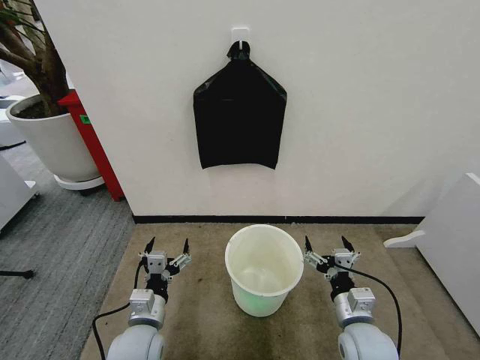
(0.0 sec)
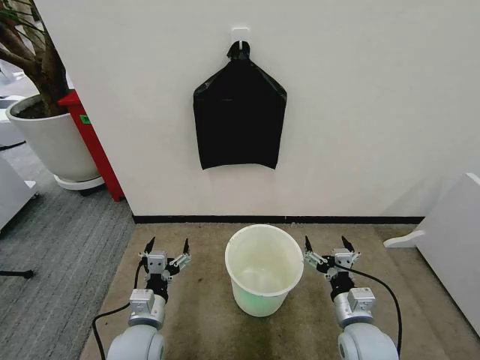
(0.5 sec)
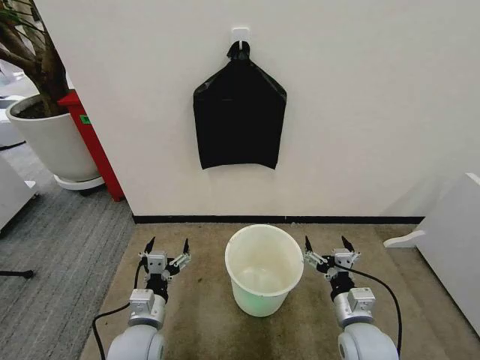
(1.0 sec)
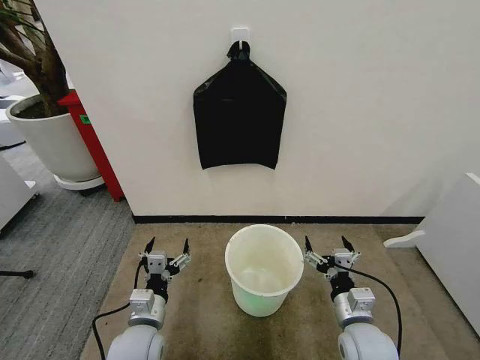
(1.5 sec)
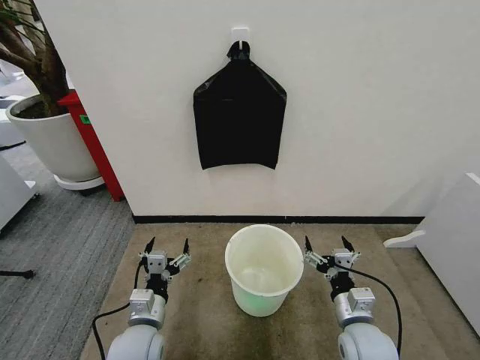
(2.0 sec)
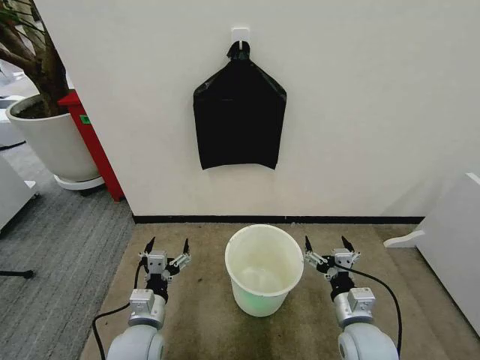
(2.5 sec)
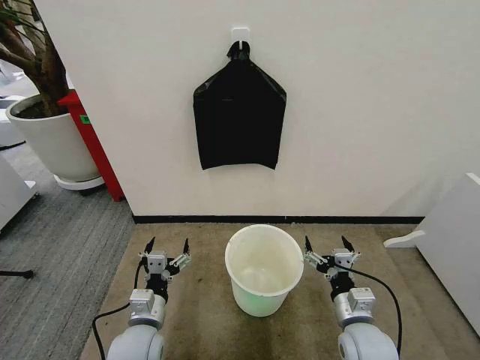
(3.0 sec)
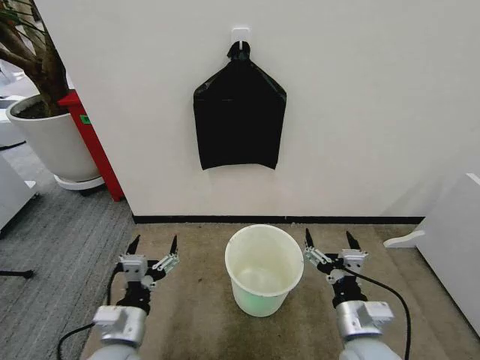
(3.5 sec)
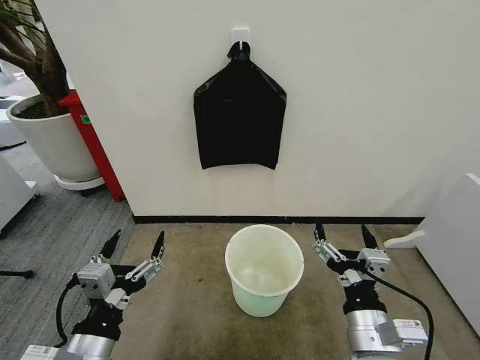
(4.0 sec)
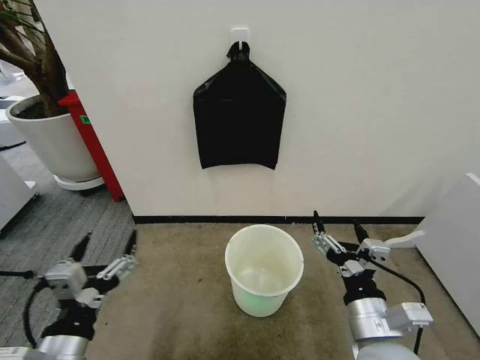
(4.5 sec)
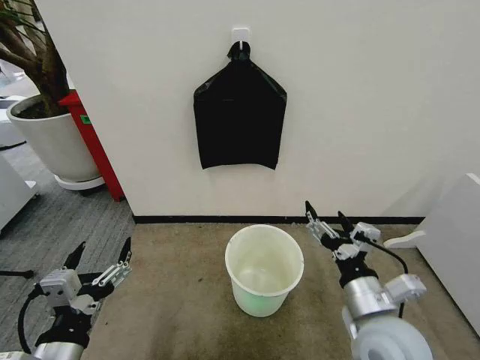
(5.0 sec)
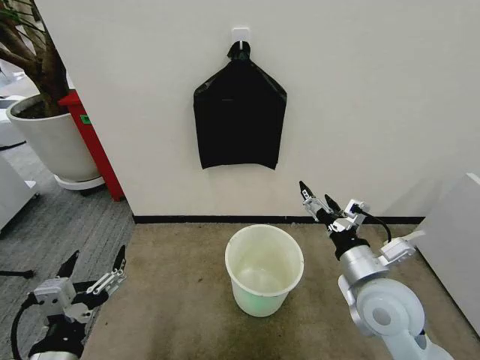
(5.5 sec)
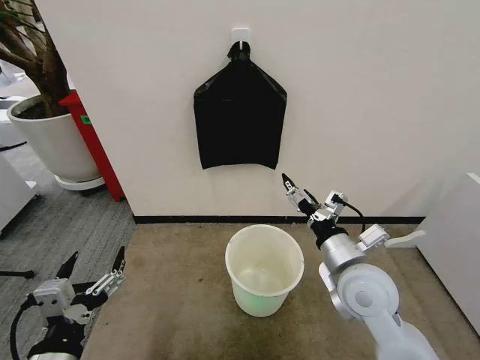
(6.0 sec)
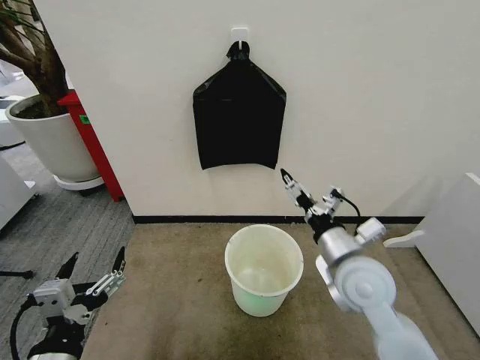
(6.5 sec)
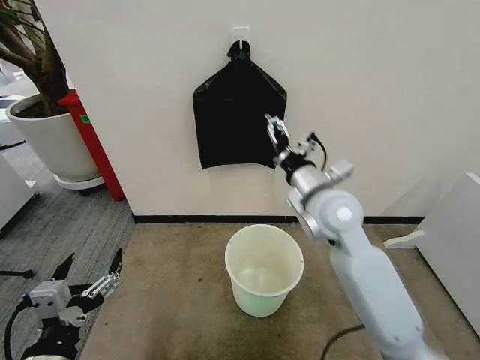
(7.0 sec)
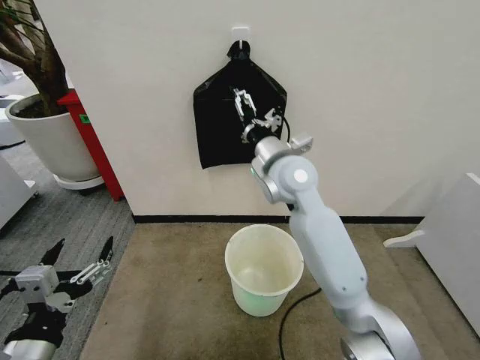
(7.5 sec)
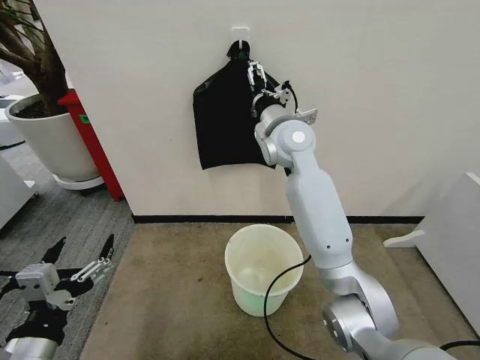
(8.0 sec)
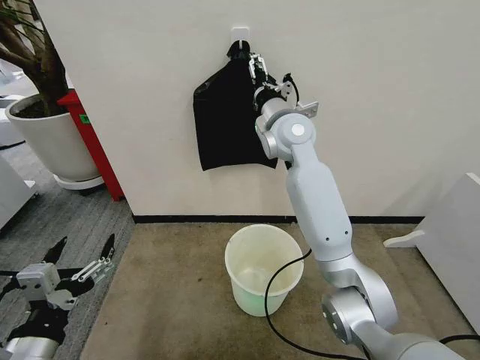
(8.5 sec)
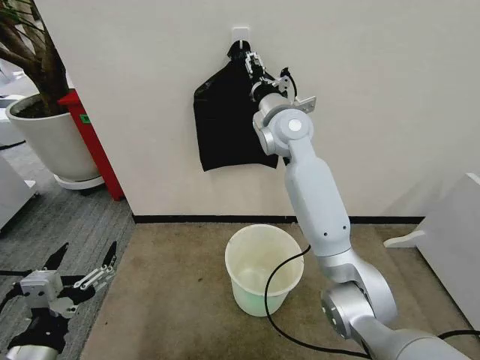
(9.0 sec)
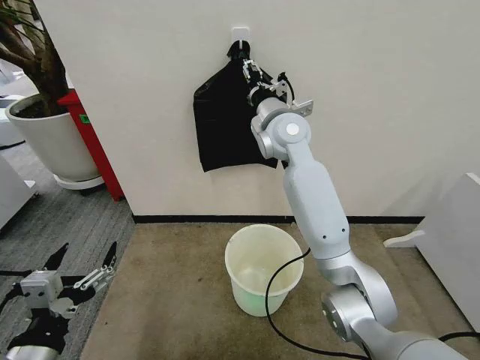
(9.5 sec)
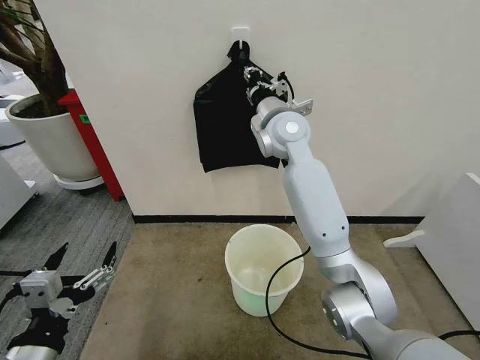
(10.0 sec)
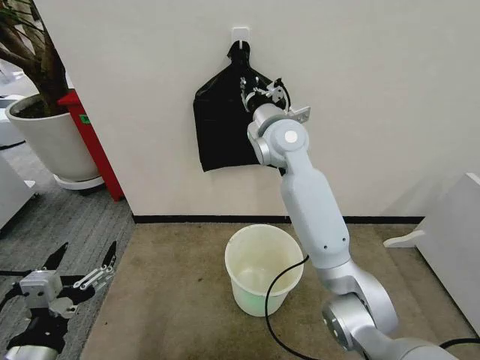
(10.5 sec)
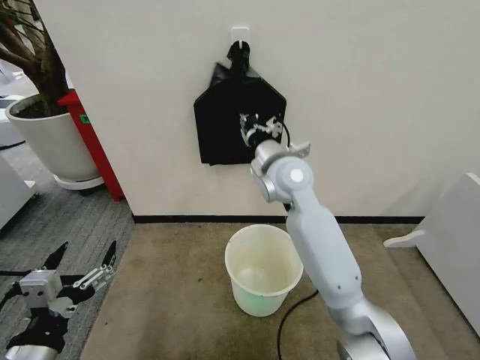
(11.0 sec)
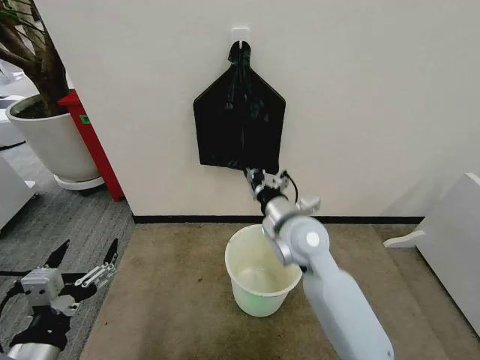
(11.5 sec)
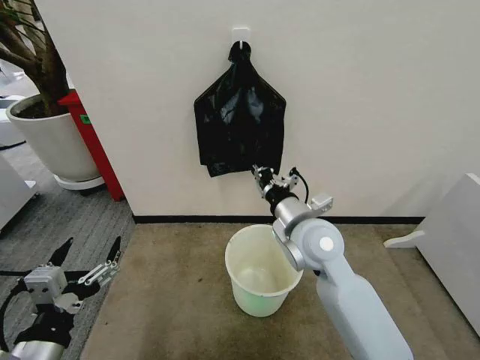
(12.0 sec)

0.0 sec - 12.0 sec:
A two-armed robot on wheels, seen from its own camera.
Task of the whole recording: Place the garbage bag over the trash bin.
2.0 sec - 4.0 sec: The grippers both shift upward and backward by approximately 15 cm.
4.0 sec - 6.0 sec: The right gripper is displaced forward by roughly 15 cm.
6.0 sec - 8.0 sec: The right gripper shifts about 30 cm forward, upward and to the left.
8.0 sec - 10.0 sec: The right gripper closes up.
10.0 sec - 12.0 sec: The right gripper moves backward and downward, roughly 20 cm.

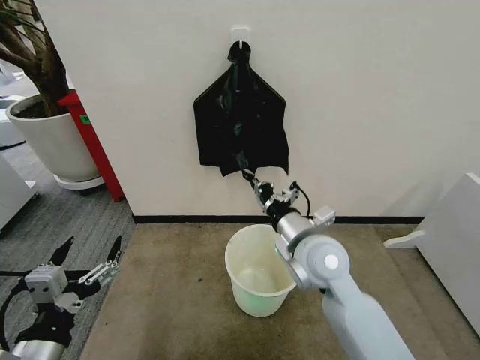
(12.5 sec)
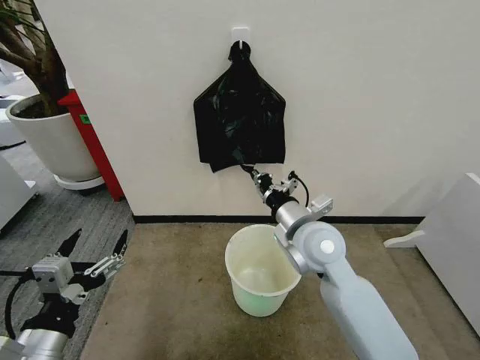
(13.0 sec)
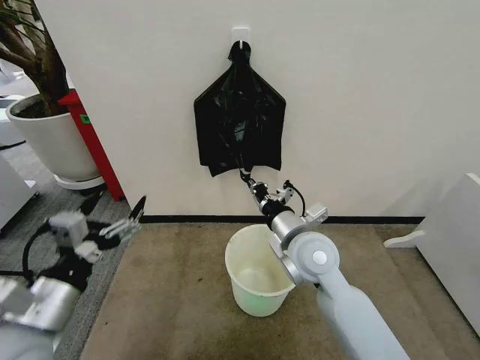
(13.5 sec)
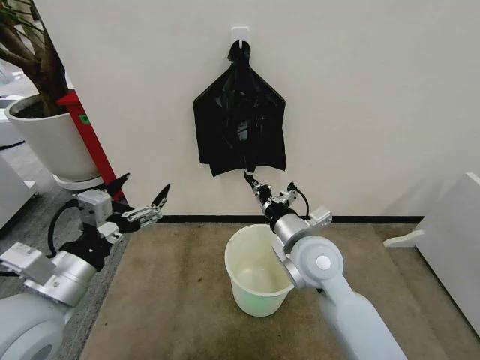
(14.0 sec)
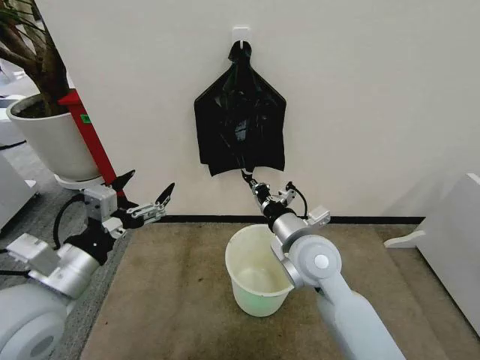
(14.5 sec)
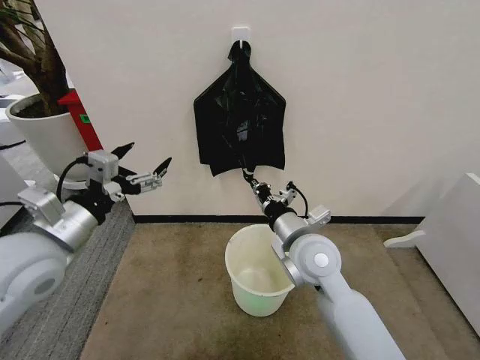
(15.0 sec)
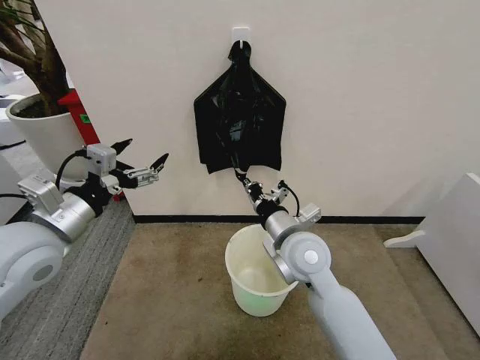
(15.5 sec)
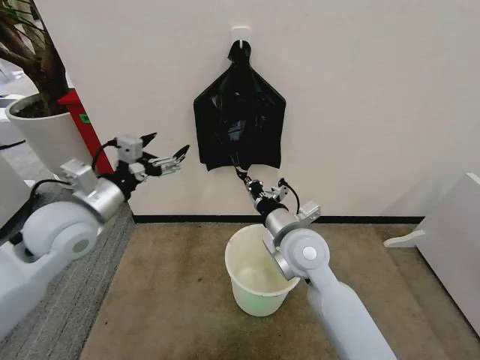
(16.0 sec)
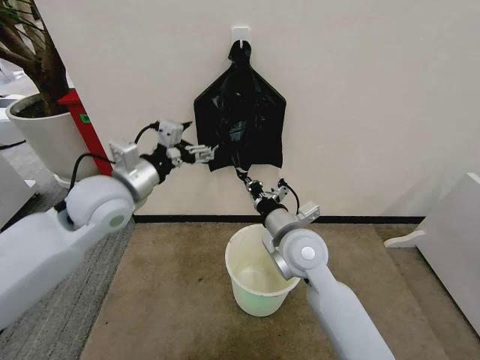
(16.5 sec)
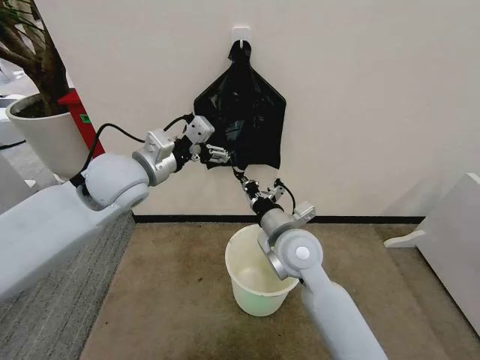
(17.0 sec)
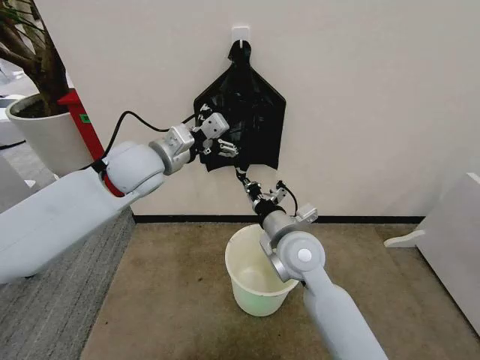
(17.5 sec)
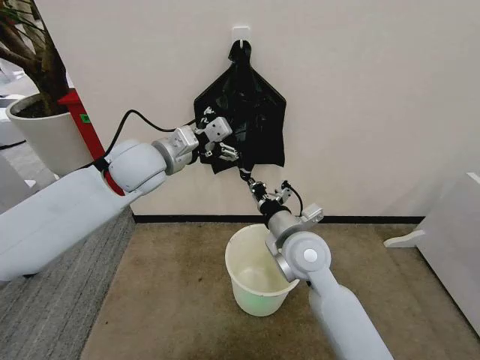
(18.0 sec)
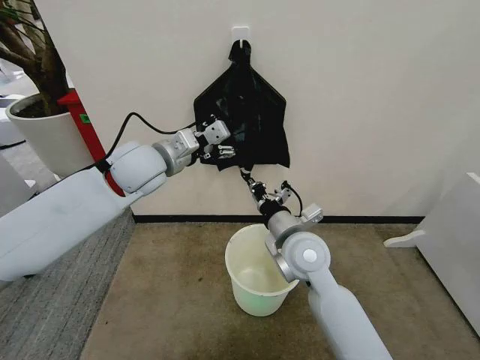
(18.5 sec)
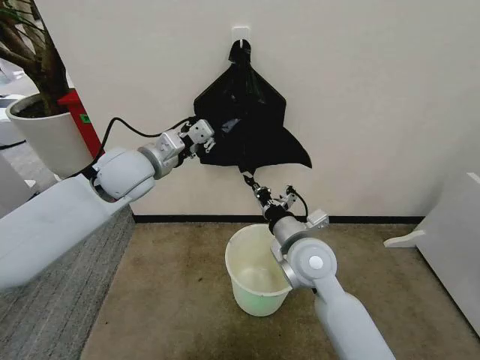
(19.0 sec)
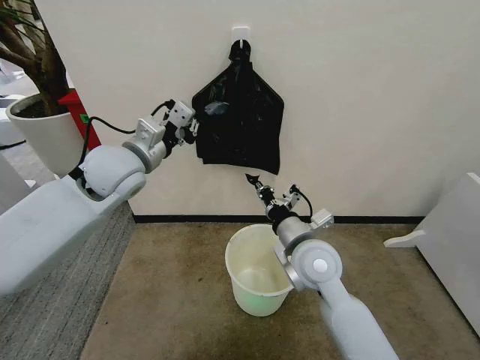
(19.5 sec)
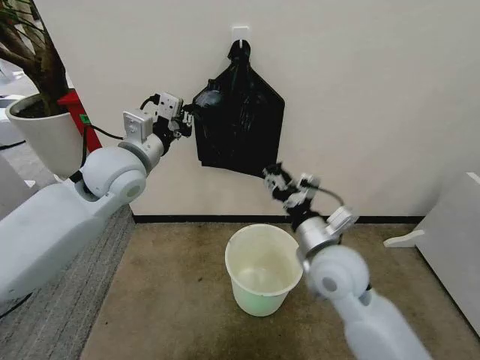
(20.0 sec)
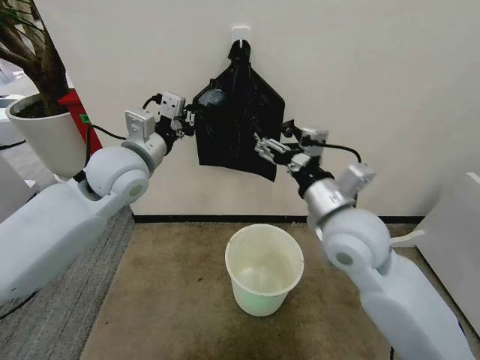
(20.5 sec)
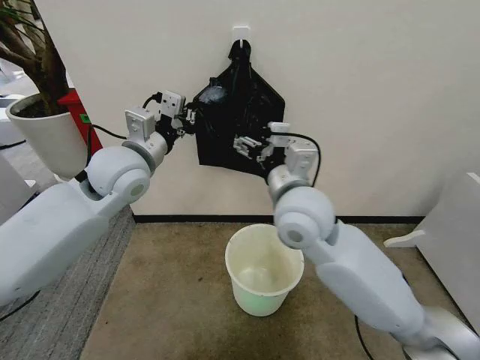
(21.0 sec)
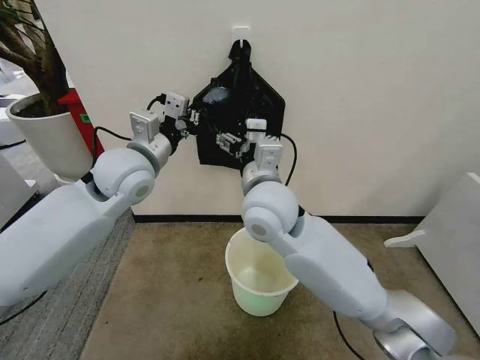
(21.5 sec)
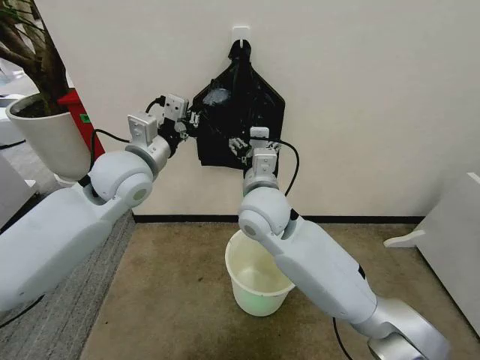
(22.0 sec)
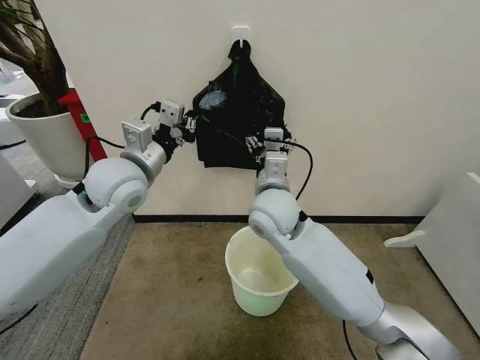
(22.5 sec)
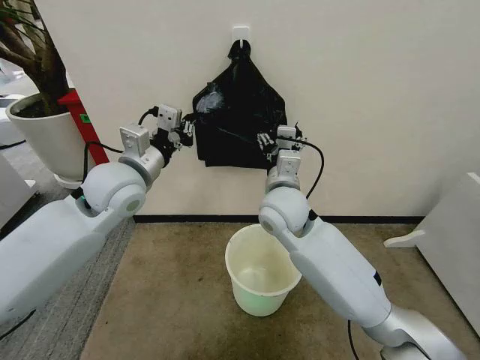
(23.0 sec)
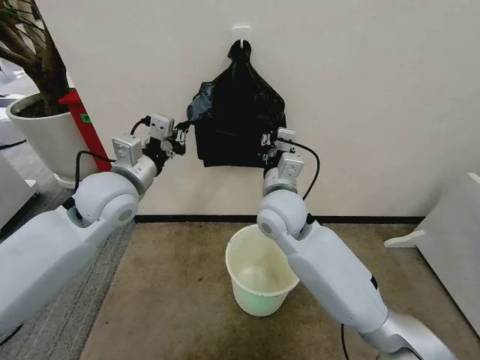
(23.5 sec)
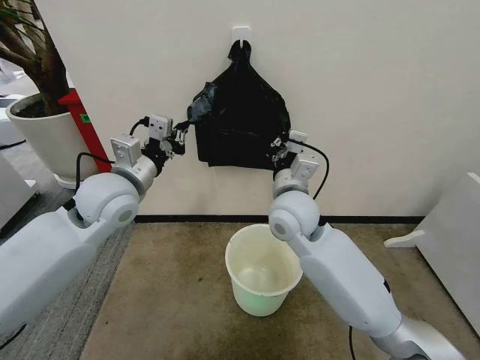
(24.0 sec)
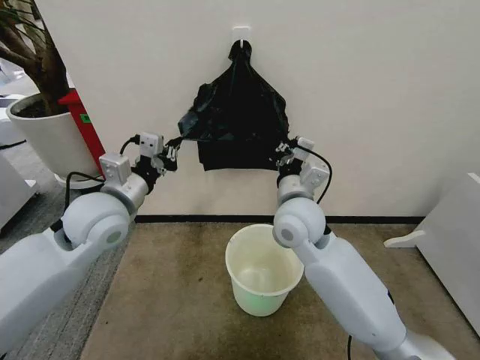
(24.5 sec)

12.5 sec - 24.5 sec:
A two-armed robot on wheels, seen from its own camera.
Task of the whole recording: Place the garbage bag over the trash bin.
12.5 sec - 14.5 sec: The left gripper travels forward and upward by roughly 15 cm.
14.5 sec - 16.5 sec: The left gripper moves forward, roughly 20 cm.
16.5 sec - 18.5 sec: The left gripper heads forward, covering some 5 cm.
18.5 sec - 20.5 sec: The left gripper closes up. Meanwhile the right gripper is displaced upward and to the right by about 10 cm, and opens its fingers.
20.5 sec - 22.5 sec: The right gripper shifts roughly 15 cm to the left and forward.
22.5 sec - 24.5 sec: The right gripper closes. Meanwhile the left gripper shifts by roughly 5 cm.

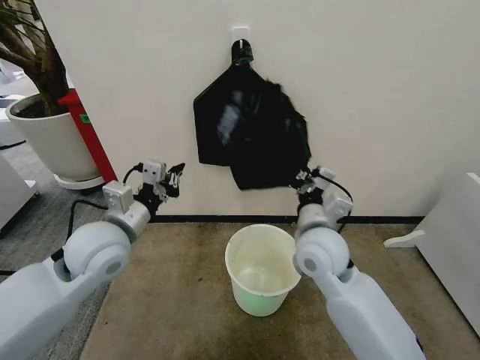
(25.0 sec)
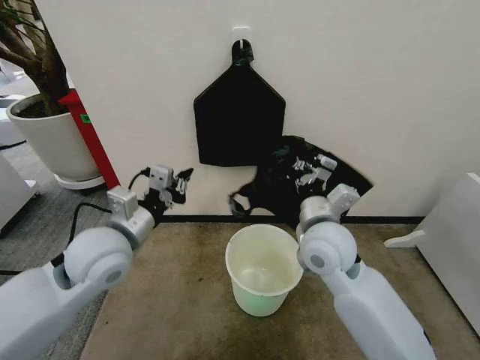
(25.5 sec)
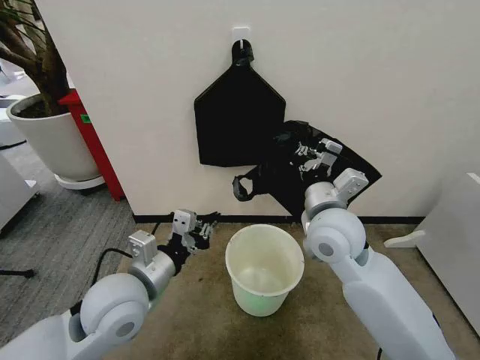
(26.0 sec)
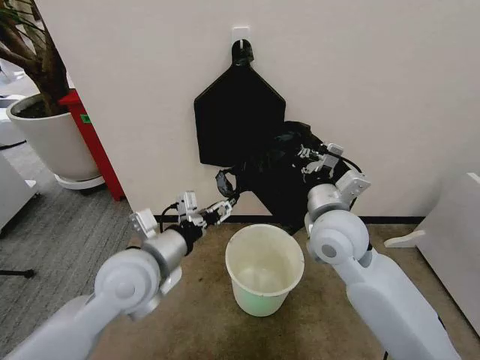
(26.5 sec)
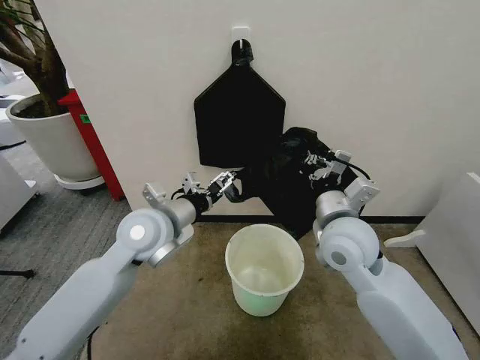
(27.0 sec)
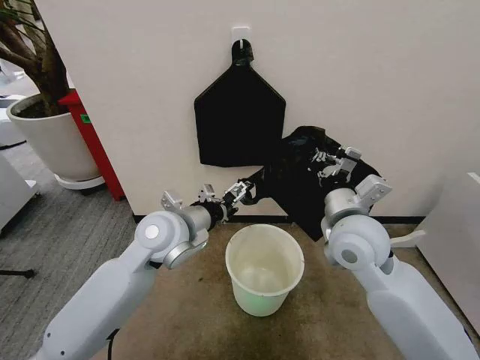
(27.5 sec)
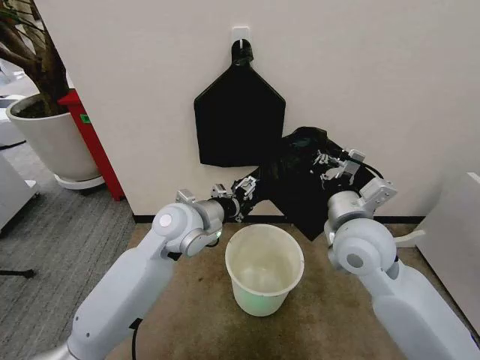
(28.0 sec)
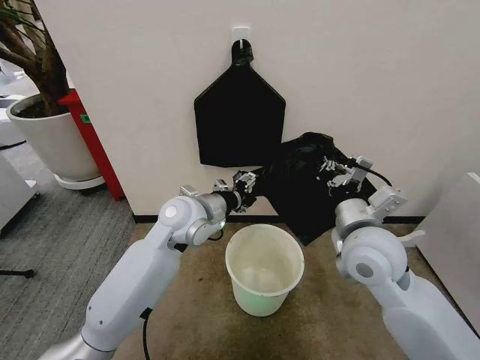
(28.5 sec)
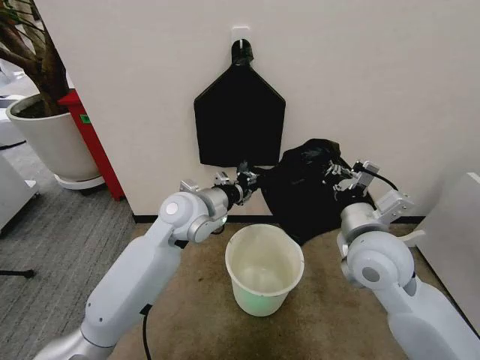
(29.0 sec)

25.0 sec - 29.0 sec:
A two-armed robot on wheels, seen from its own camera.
Task of the whole recording: Place the garbage bag over the trash bin.
25.0 sec - 27.0 sec: The right gripper shifts by approximately 5 cm. Meanwhile the left gripper moves to the right, approximately 5 cm, reaches roughly 5 cm backward, then returns, and opens up.
27.0 sec - 29.0 sec: The left gripper travels to the right by roughly 5 cm, and closes up. Meanwhile the right gripper moves approximately 5 cm.
